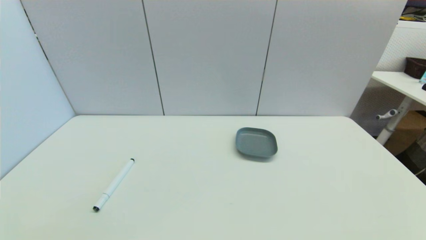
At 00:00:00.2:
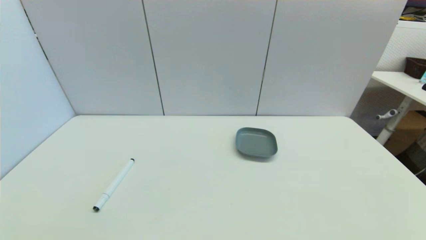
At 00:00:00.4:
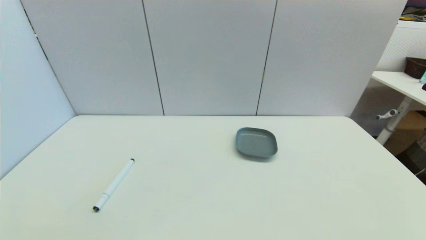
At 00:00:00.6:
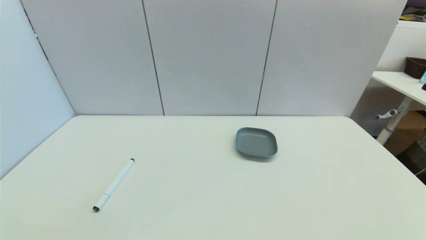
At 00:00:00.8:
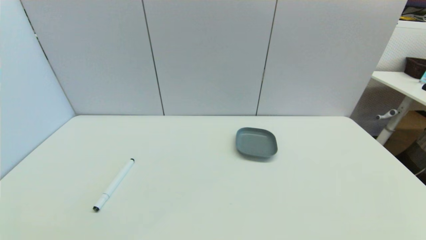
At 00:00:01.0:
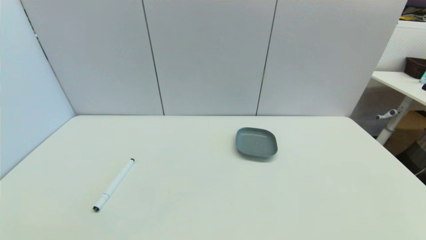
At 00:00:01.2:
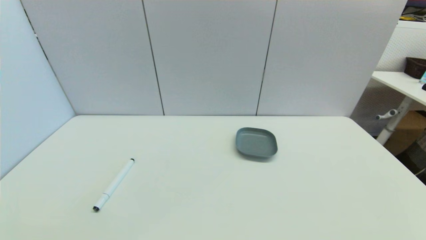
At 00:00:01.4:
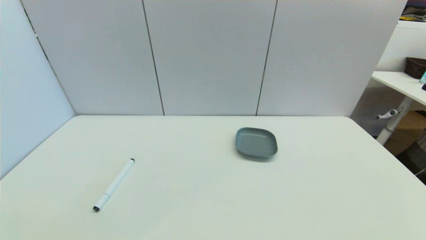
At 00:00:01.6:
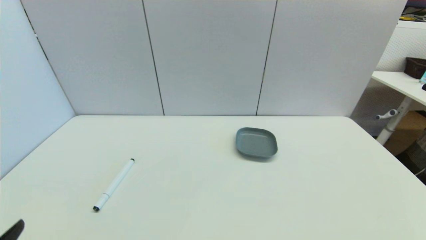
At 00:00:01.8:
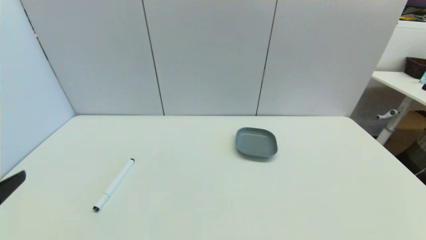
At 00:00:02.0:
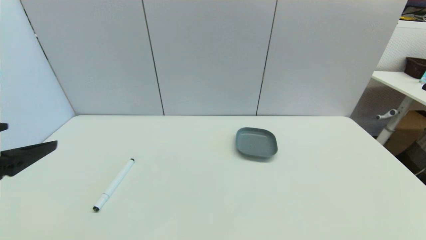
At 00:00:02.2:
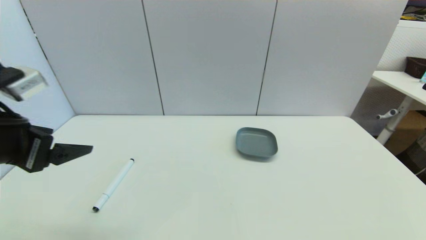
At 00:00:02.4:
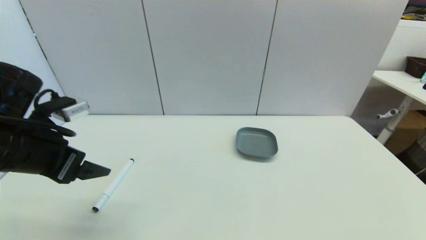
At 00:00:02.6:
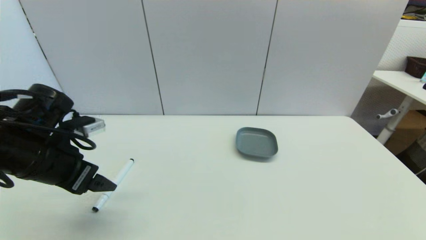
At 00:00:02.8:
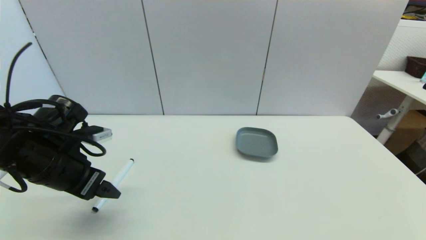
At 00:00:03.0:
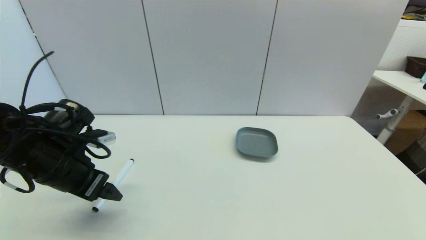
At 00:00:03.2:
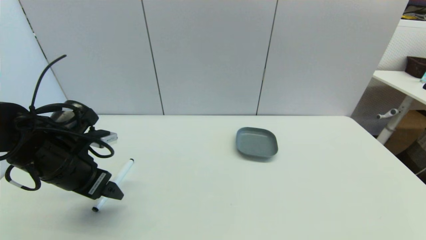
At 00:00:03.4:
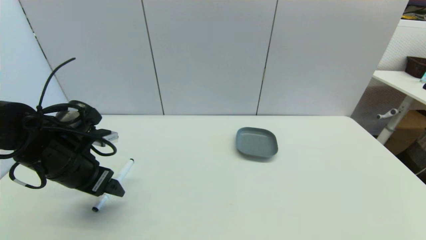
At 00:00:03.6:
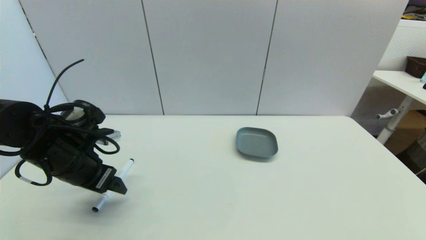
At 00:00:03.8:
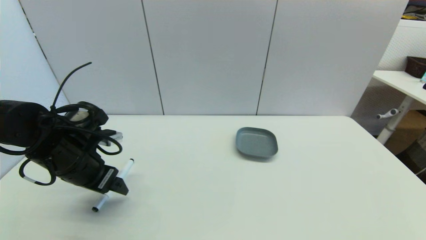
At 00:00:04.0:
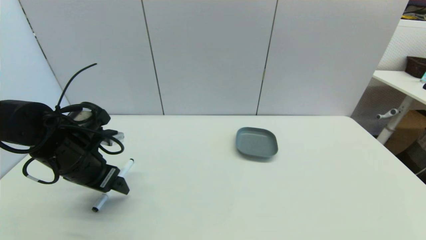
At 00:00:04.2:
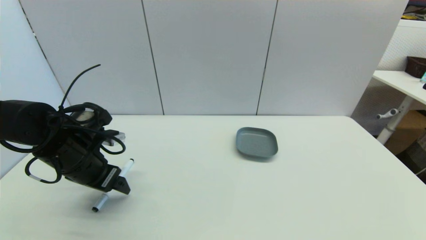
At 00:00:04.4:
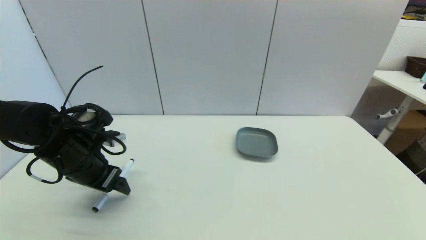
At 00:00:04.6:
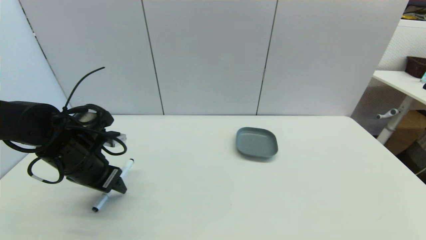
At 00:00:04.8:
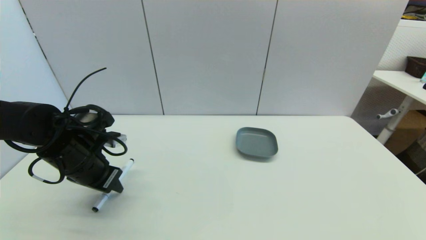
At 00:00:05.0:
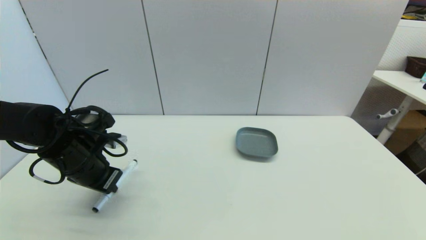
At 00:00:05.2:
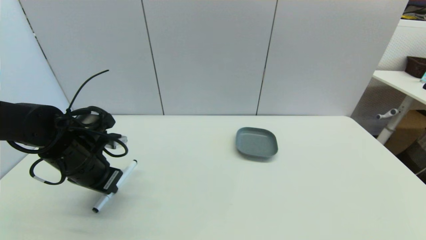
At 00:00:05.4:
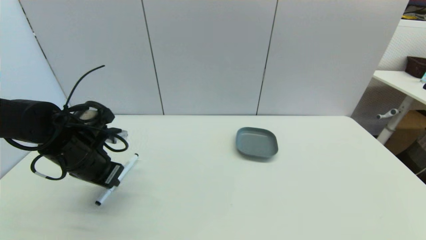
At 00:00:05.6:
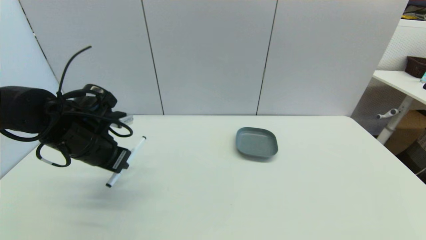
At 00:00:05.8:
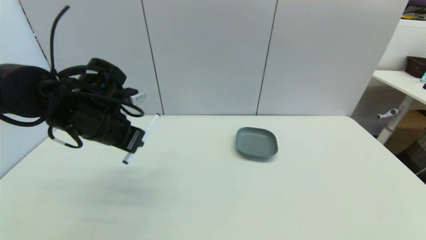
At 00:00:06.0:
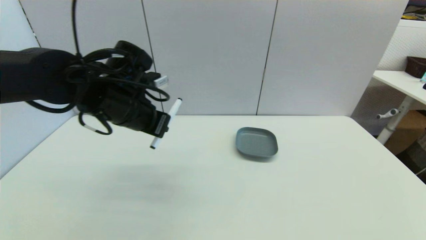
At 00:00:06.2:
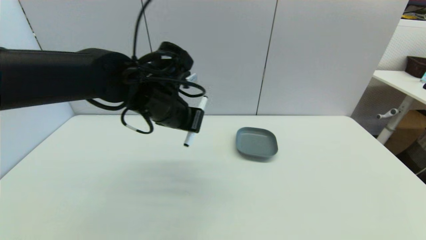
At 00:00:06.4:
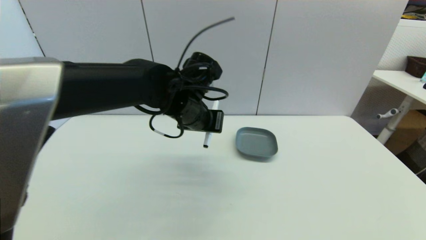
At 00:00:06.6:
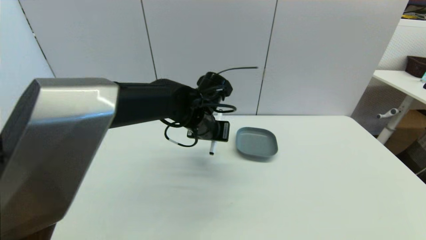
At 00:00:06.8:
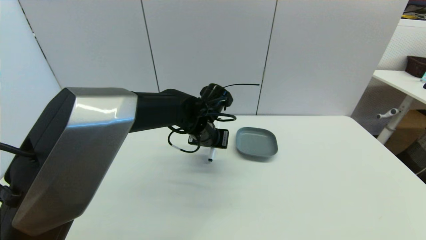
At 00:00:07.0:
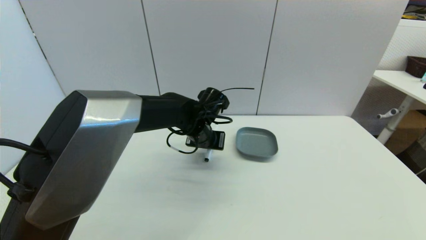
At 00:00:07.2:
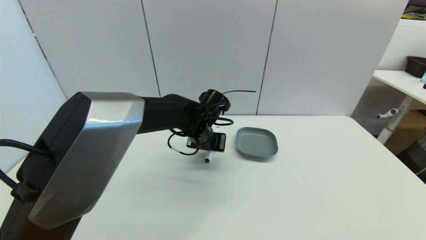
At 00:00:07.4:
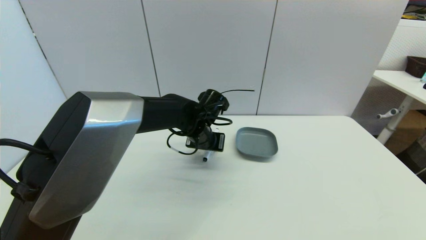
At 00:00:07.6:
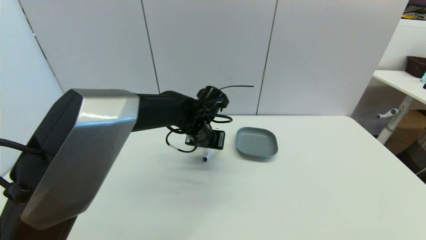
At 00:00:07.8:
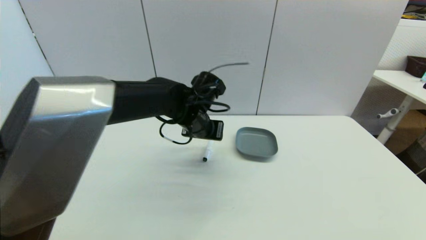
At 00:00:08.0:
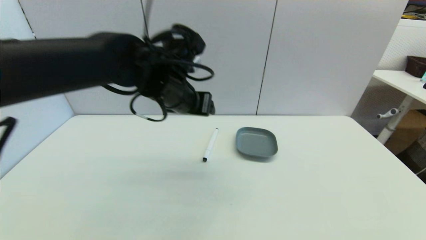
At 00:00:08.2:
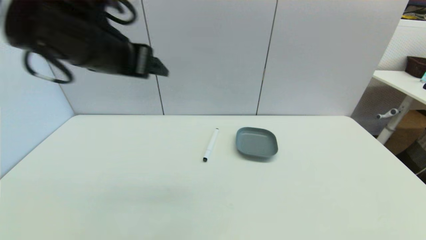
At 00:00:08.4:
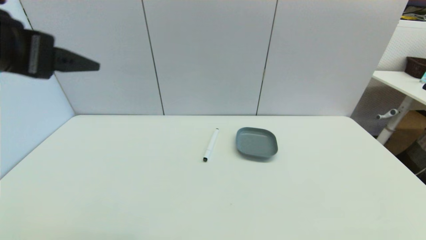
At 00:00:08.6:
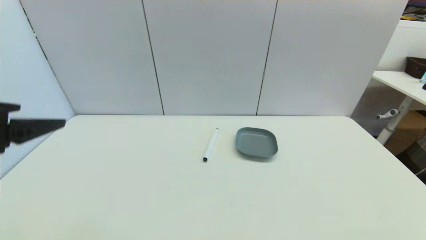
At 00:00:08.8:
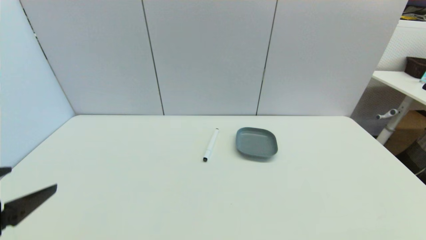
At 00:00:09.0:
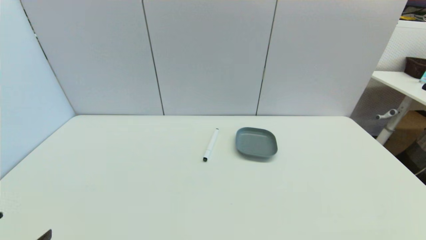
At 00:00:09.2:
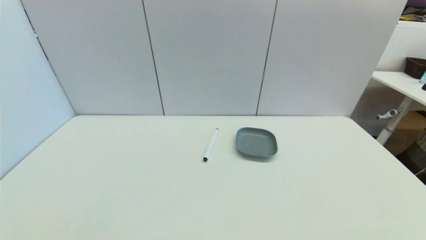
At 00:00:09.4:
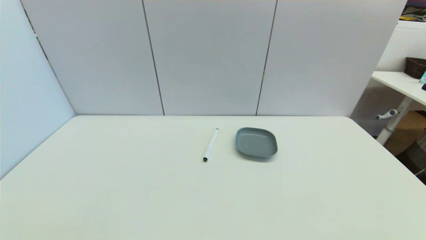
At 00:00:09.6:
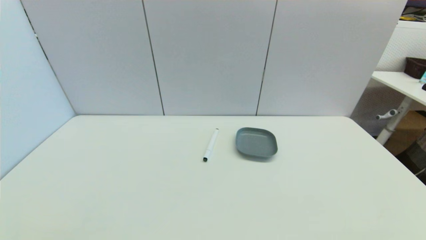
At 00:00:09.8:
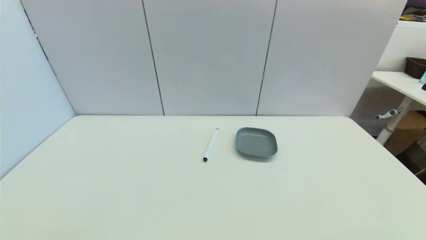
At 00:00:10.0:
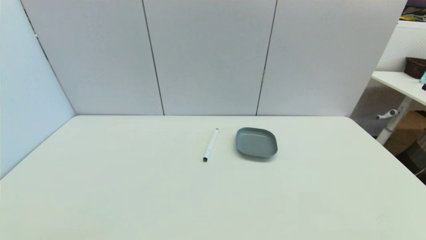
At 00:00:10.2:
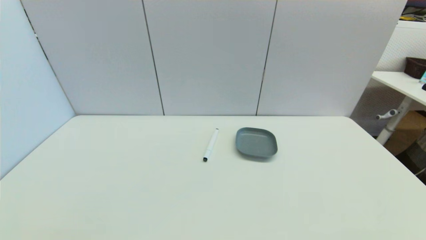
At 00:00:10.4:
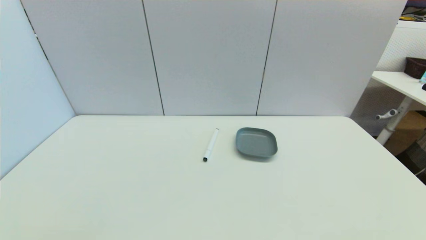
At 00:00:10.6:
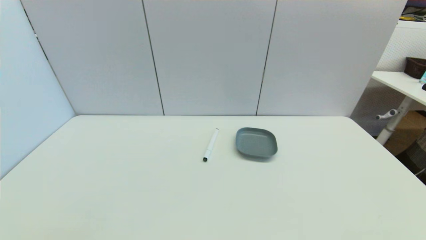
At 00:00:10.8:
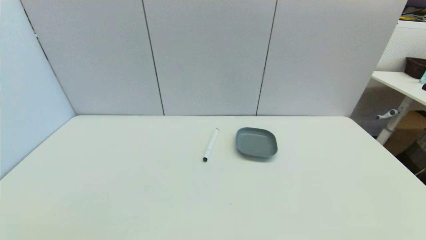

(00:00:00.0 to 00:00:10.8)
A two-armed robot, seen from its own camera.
Task of the whole recording: put the black marker in the designated position.
Step, 00:00:01.6 - 00:00:05.0: Grasp the Marker pen with left gripper.
Step, 00:00:05.2 - 00:00:07.4: Place the Marker pen on the table with left gripper.
00:00:01.6 - 00:00:03.0: The left gripper shifts about 25 cm forward.
00:00:03.0 - 00:00:04.6: The grippers make only small movements.
00:00:04.6 - 00:00:06.2: The left gripper is displaced to the right and upward by about 20 cm, and closes its fingers.
00:00:06.2 - 00:00:07.8: The left gripper opens its fingers.
00:00:07.8 - 00:00:09.2: The left gripper heads backward and to the left, covering roughly 40 cm.
